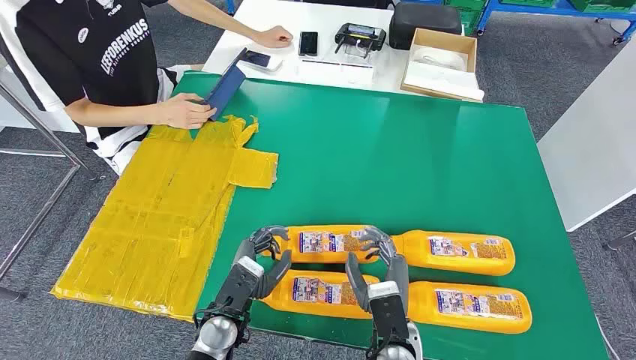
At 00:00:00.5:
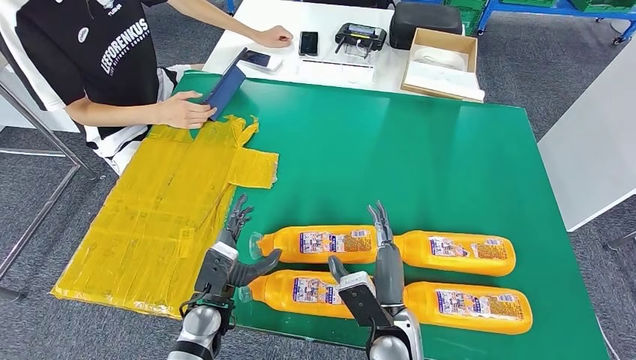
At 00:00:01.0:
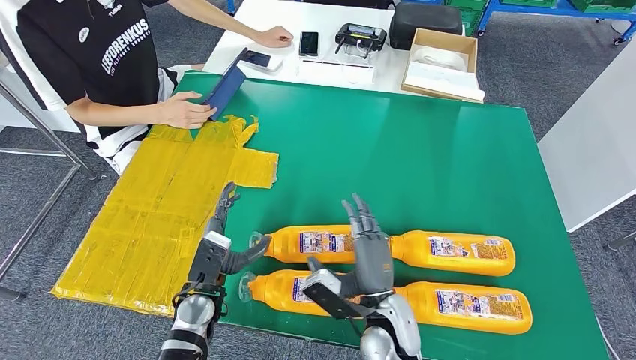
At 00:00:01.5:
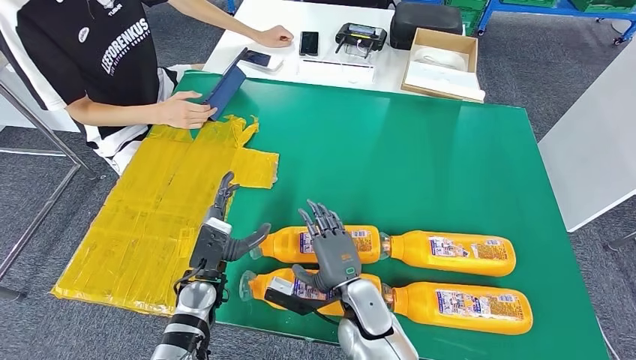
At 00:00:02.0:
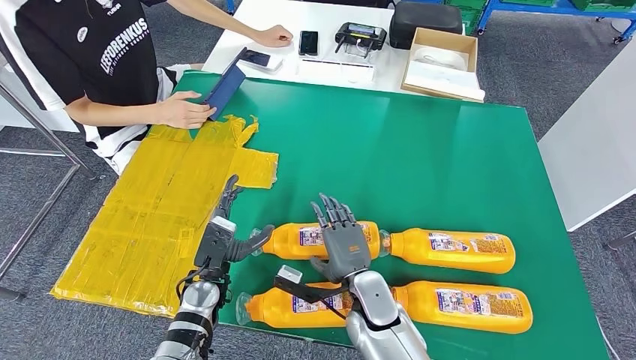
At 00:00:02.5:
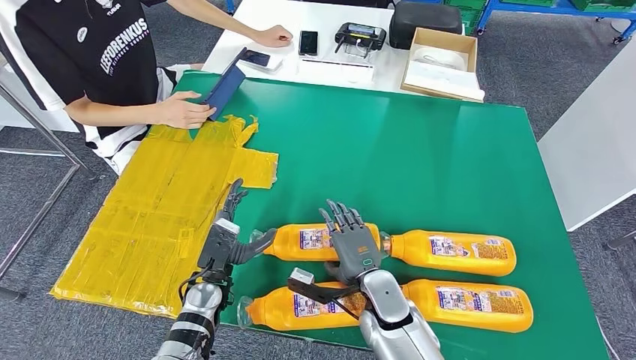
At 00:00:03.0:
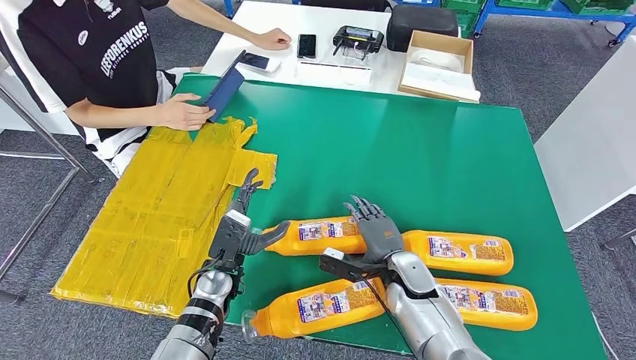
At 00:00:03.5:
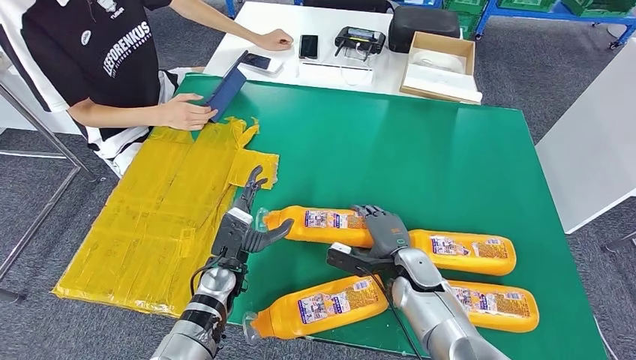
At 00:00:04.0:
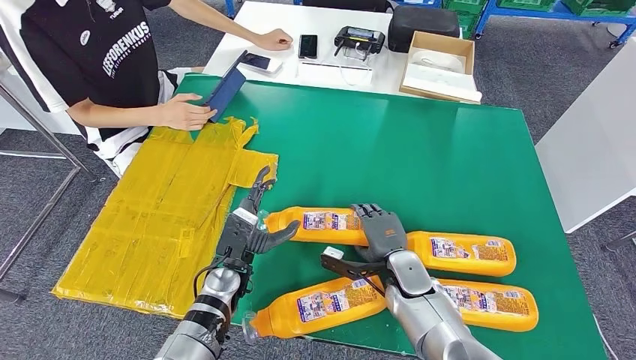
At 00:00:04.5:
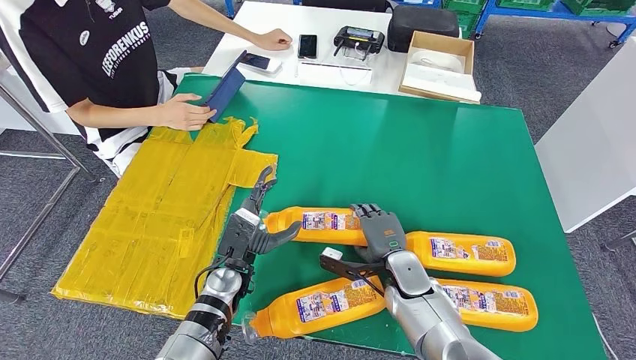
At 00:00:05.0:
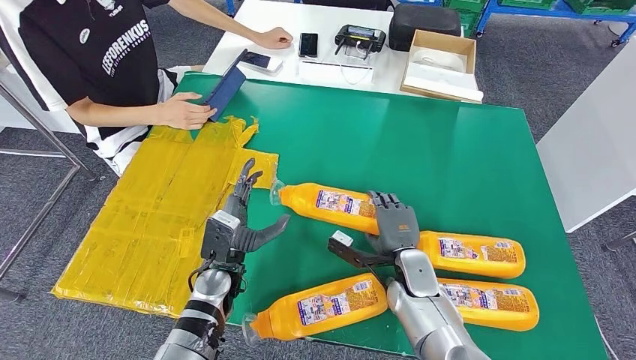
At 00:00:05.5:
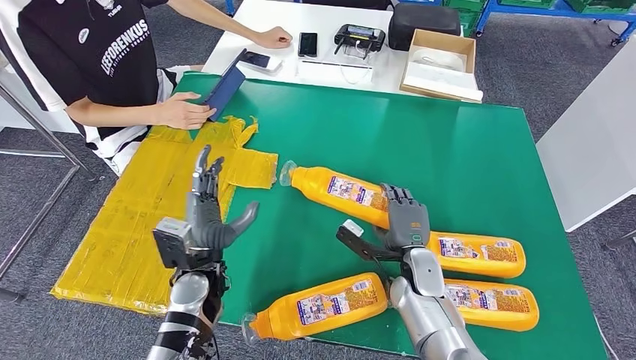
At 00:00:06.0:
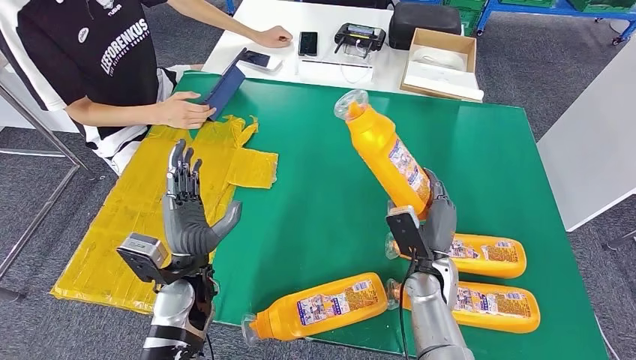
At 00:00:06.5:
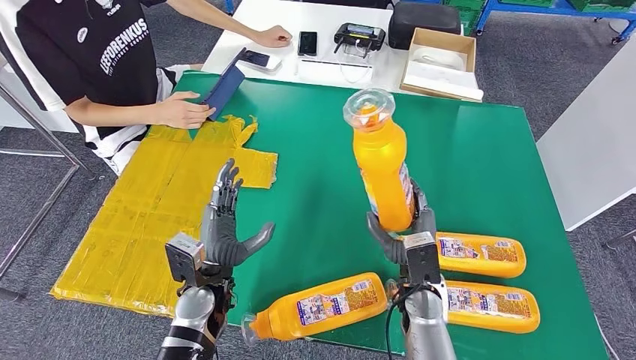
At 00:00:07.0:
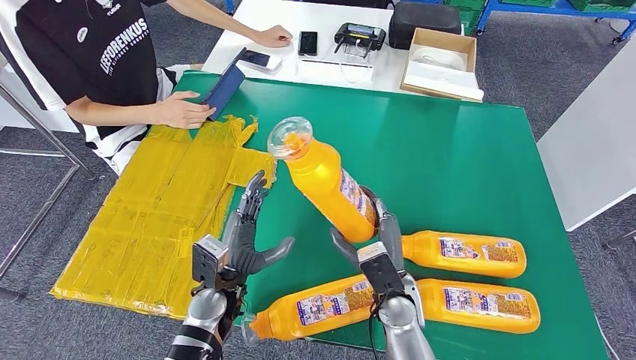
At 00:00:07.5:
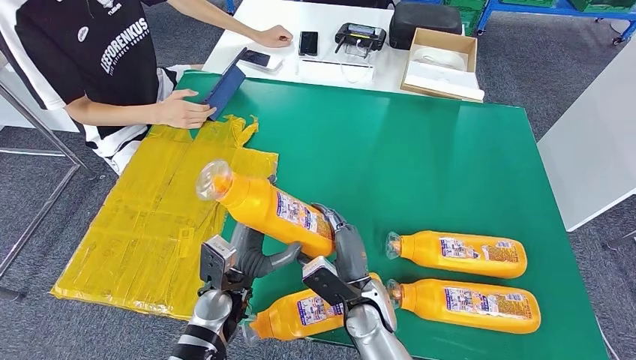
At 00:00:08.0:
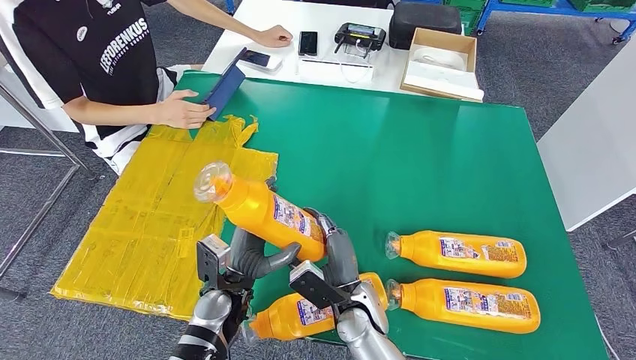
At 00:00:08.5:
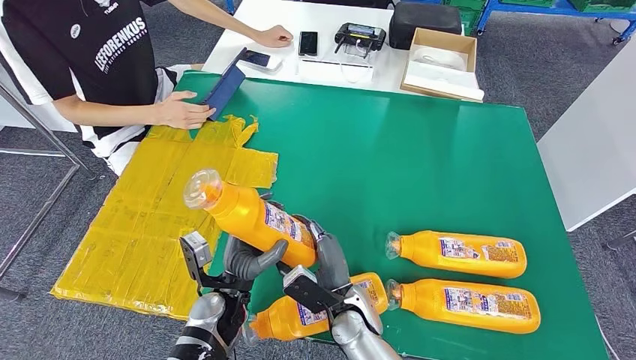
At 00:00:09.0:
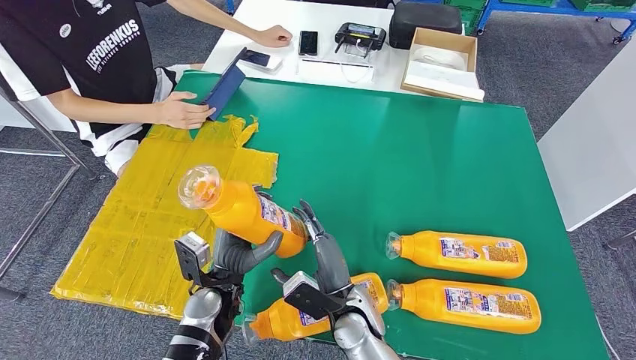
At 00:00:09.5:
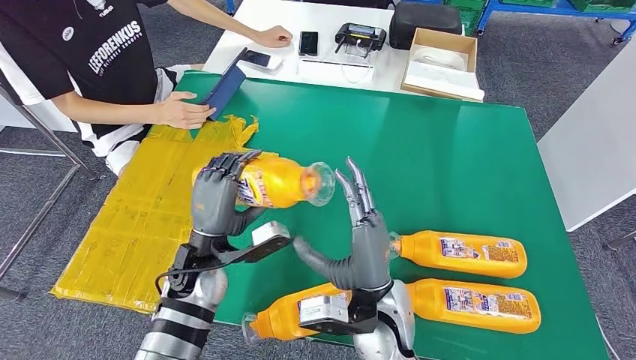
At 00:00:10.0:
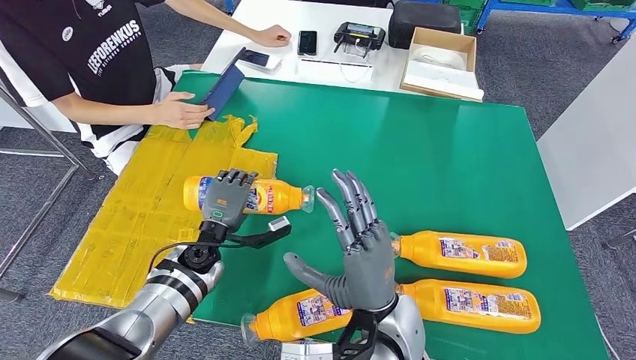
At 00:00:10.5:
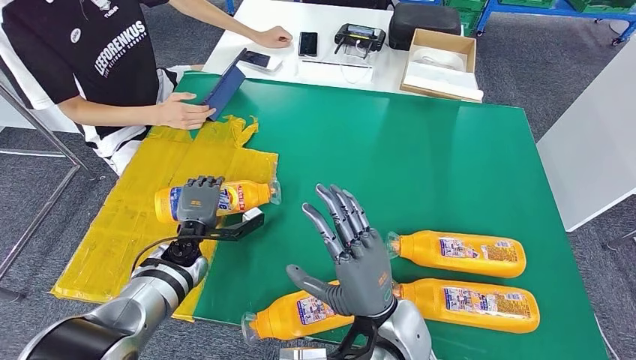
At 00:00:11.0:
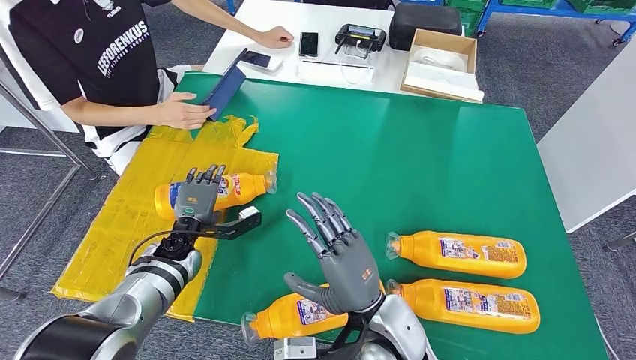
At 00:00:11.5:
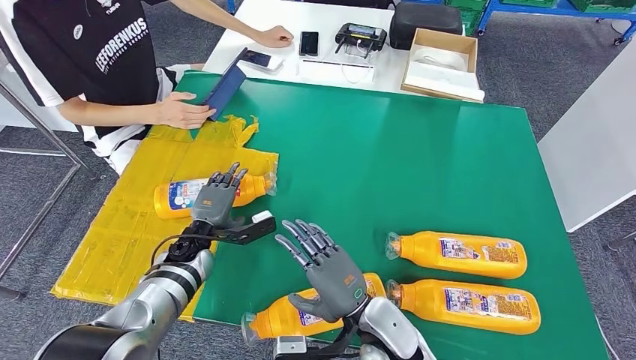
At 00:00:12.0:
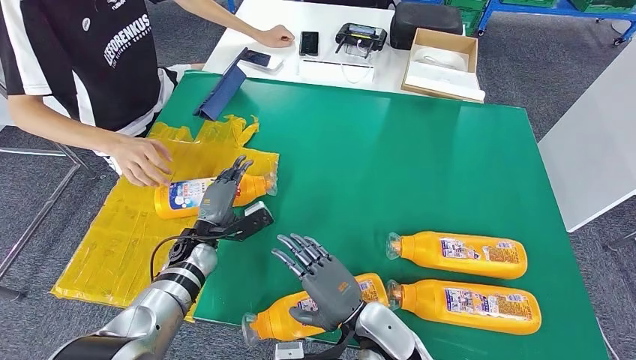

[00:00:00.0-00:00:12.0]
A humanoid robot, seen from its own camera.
Step, 00:00:00.0 to 00:00:07.0: Take the fast-moving consumer goods bottle from the table.
00:00:06.0 to 00:00:08.0: The left hand is displaced downward by about 5 cm; the right hand shifts some 15 cm to the left and backward.
00:00:08.0 to 00:00:10.0: The left hand moves forward and to the left, approximately 10 cm. Meanwhile the right hand heads upward, covering some 15 cm.

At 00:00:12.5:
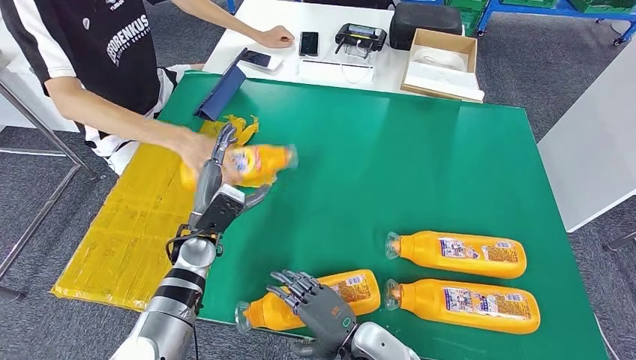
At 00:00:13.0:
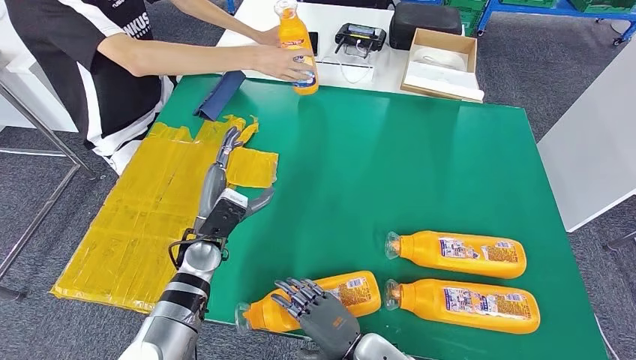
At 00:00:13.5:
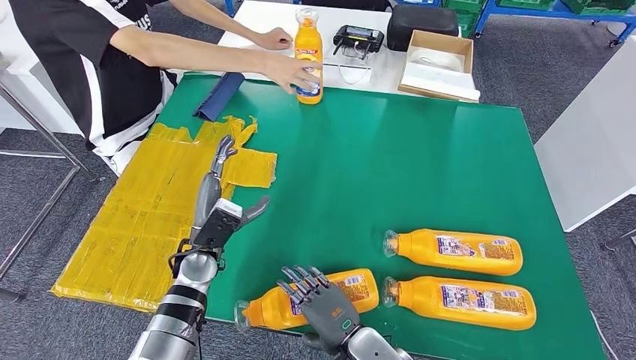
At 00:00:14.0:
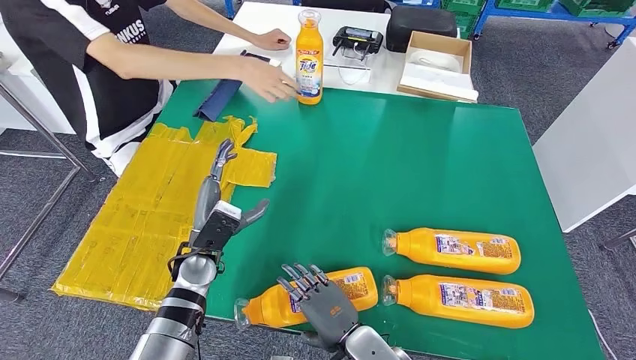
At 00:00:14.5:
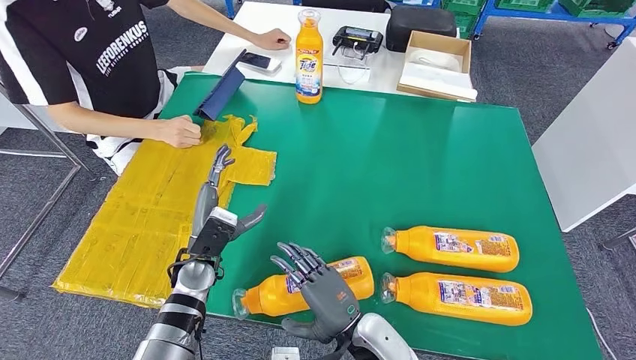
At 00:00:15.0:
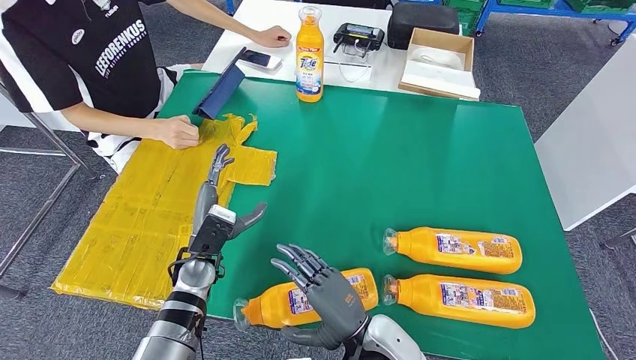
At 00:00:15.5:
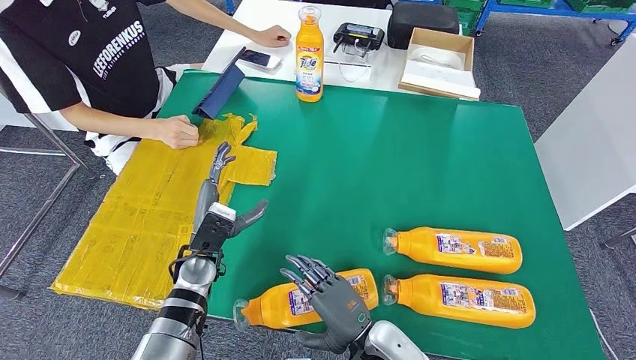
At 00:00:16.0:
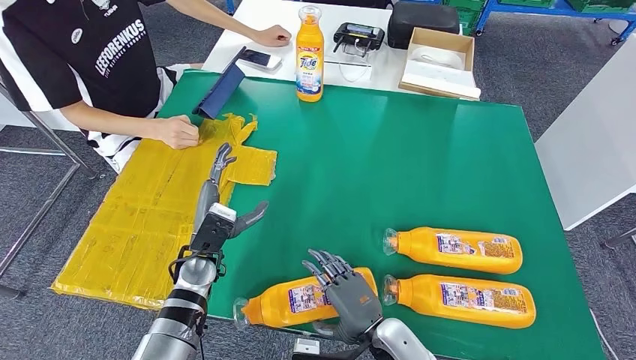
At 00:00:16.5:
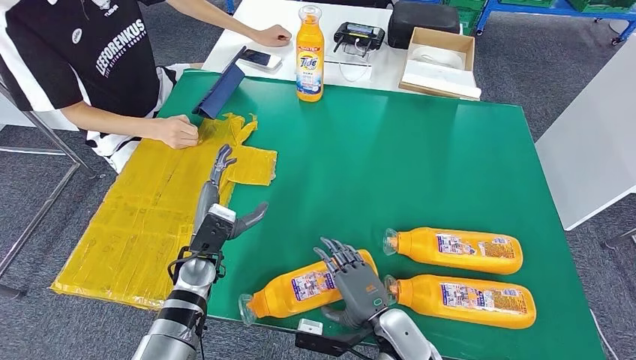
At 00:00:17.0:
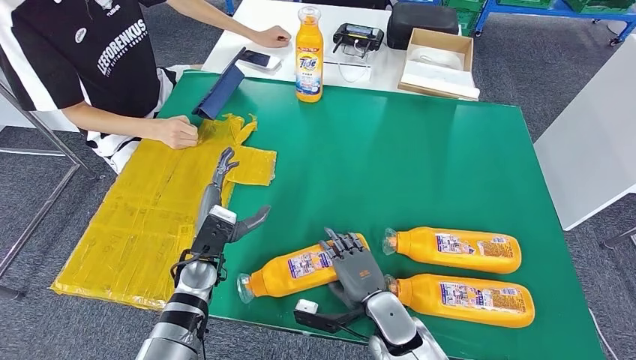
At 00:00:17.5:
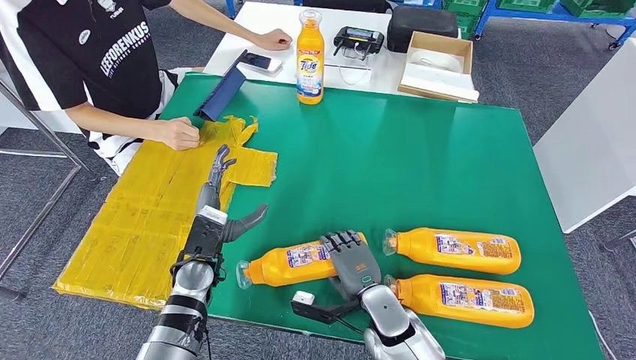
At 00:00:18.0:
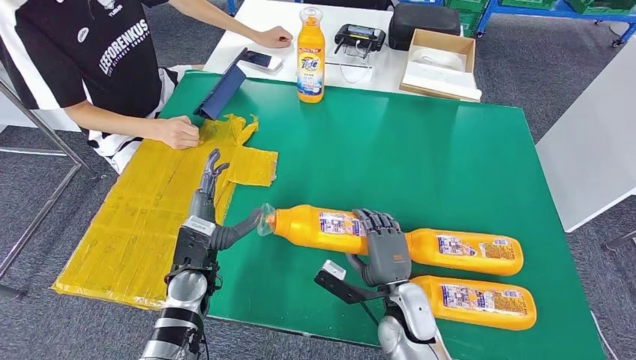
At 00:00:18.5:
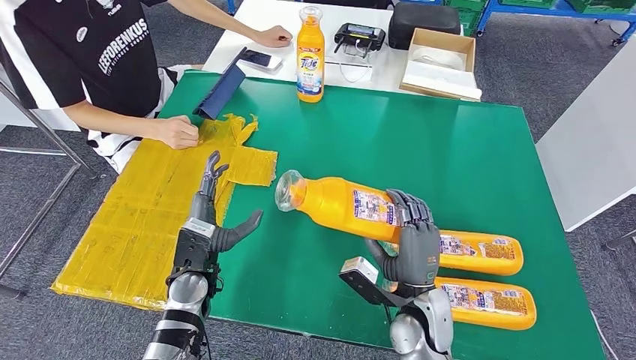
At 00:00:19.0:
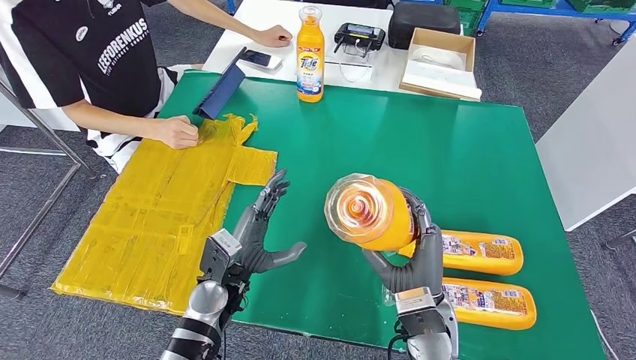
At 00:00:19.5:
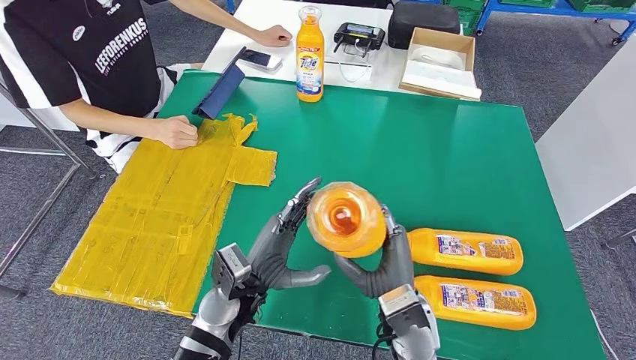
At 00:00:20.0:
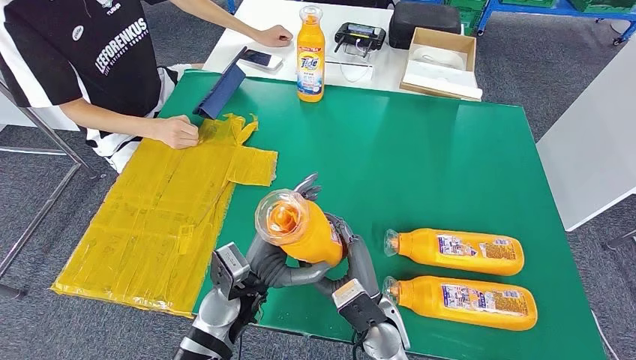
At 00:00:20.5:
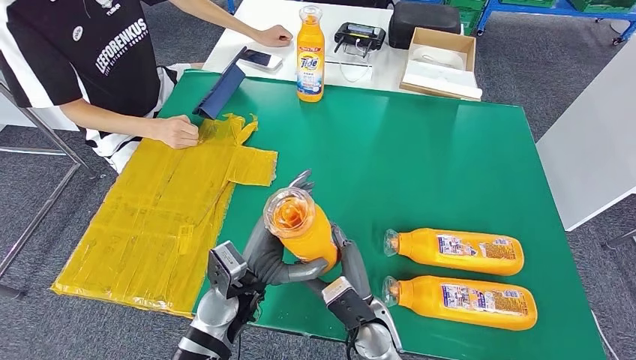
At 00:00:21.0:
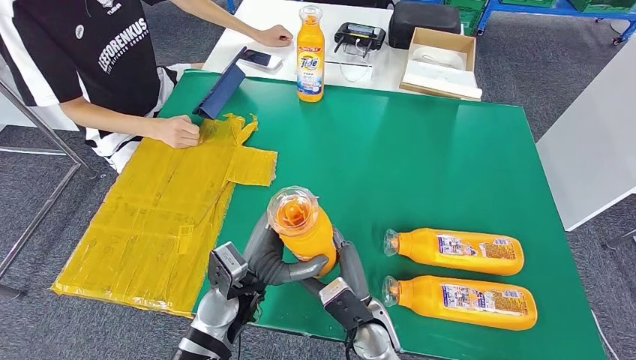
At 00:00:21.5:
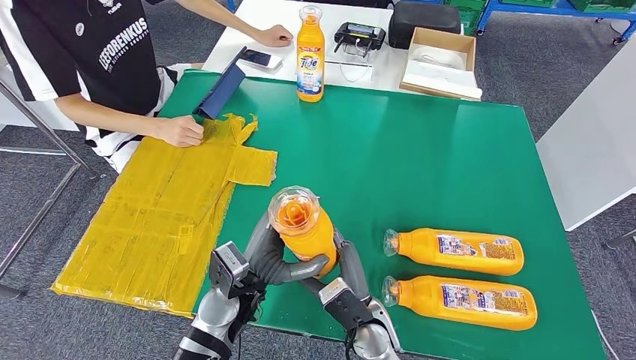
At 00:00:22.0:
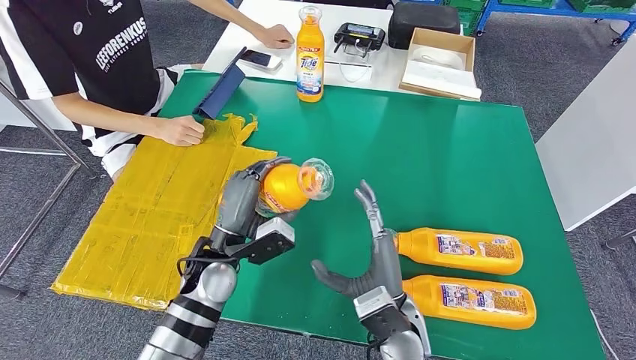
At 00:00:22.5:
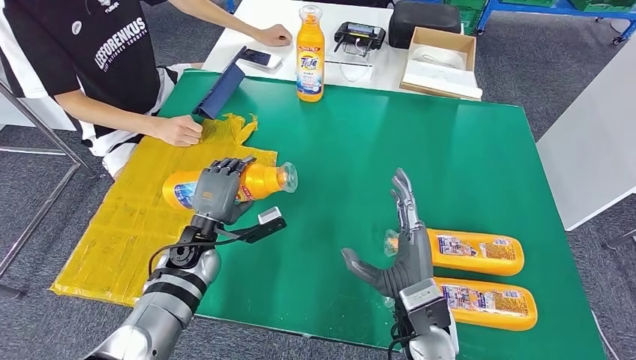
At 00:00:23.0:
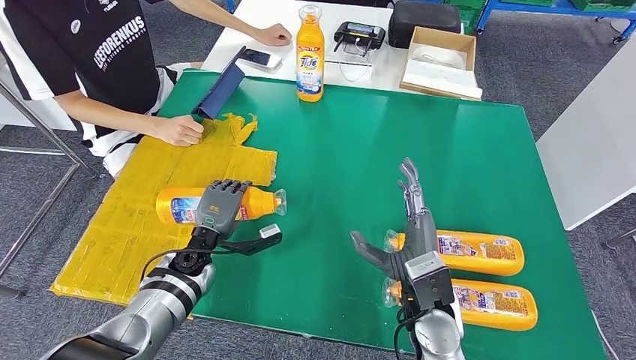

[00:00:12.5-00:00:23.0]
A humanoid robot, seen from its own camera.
Step, 00:00:12.5 to 00:00:15.0: Flip the fast-moving consumer goods bottle to the front side.
Step, 00:00:15.5 to 00:00:19.5: Pick up the fast-moving consumer goods bottle from the table.
00:00:14.5 to 00:00:16.5: The right hand changes place by approximately 5 cm.
00:00:16.5 to 00:00:19.0: The right hand goes approximately 5 cm upward, while the left hand moves to the right, roughly 5 cm.
00:00:19.0 to 00:00:21.0: The right hand is displaced to the left and downward by roughly 10 cm.
00:00:21.0 to 00:00:23.0: The right hand heads upward and to the right, covering about 10 cm. Meanwhile the left hand travels to the left, forward and downward by some 15 cm.
